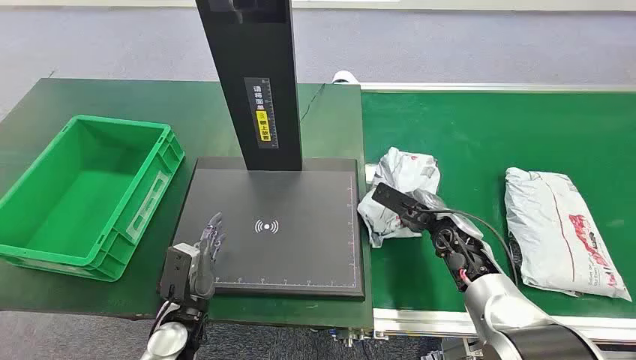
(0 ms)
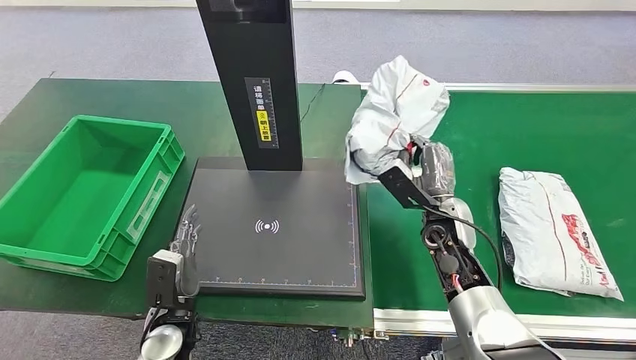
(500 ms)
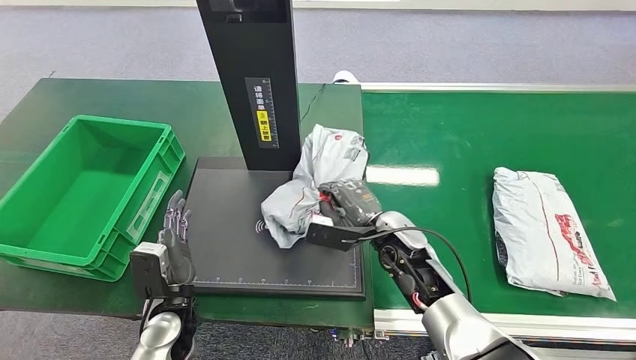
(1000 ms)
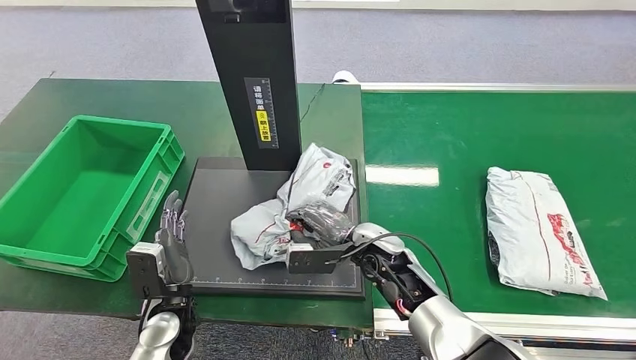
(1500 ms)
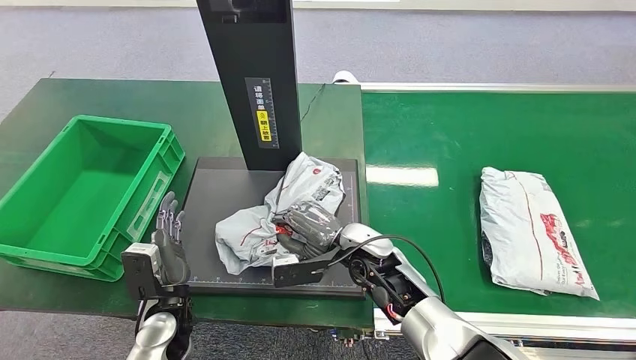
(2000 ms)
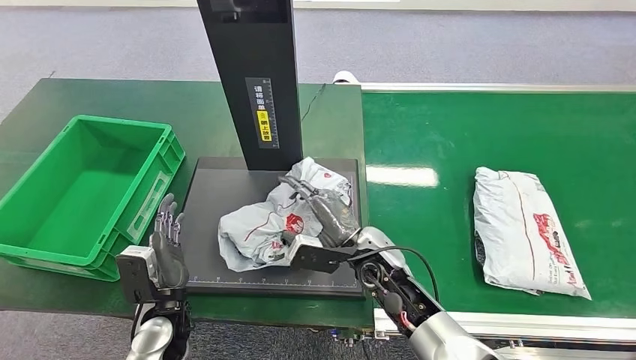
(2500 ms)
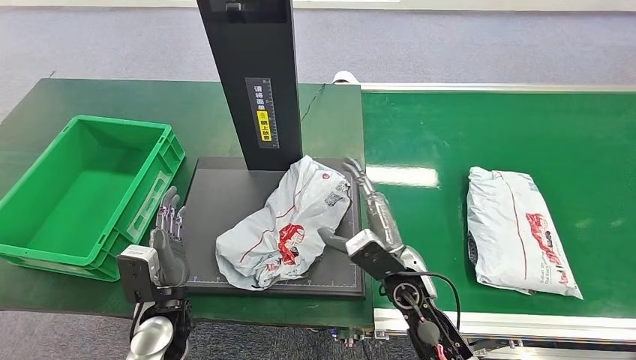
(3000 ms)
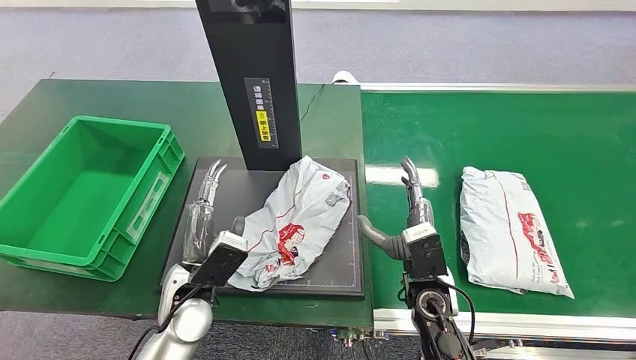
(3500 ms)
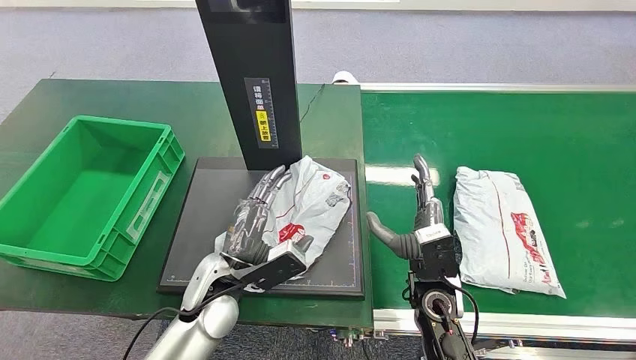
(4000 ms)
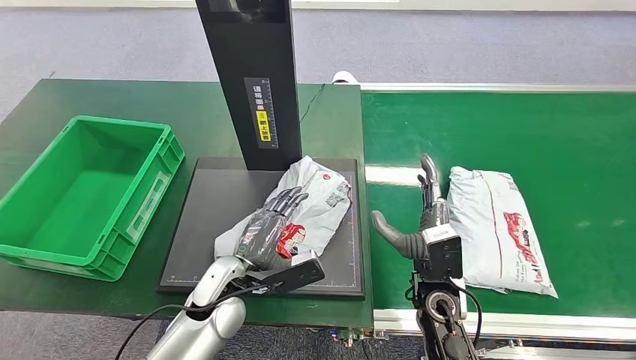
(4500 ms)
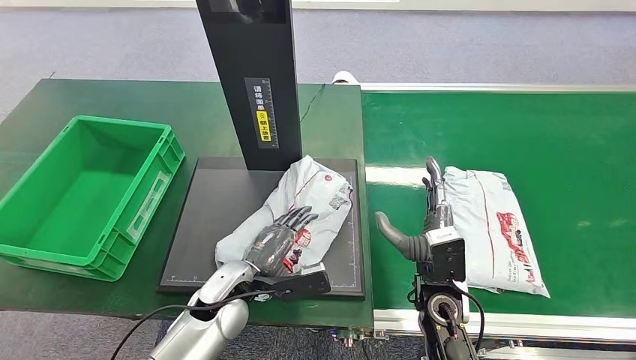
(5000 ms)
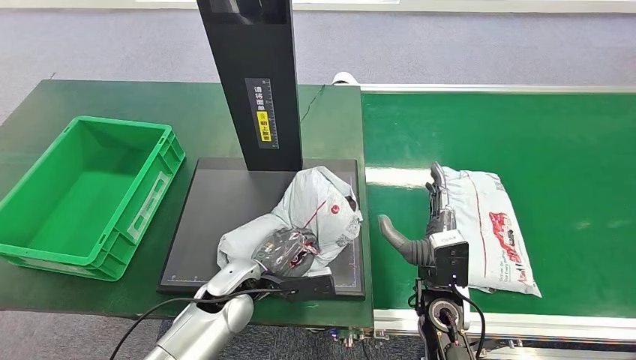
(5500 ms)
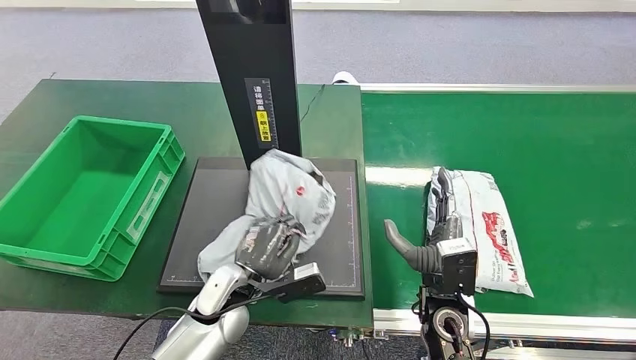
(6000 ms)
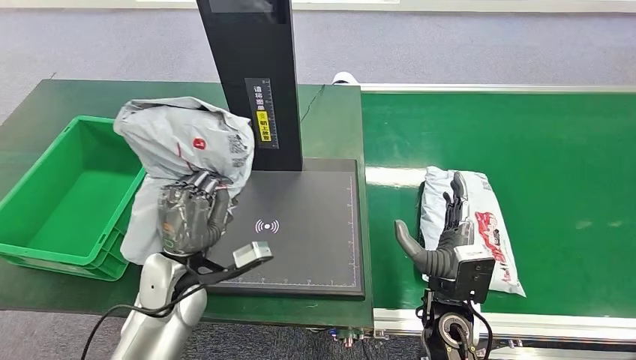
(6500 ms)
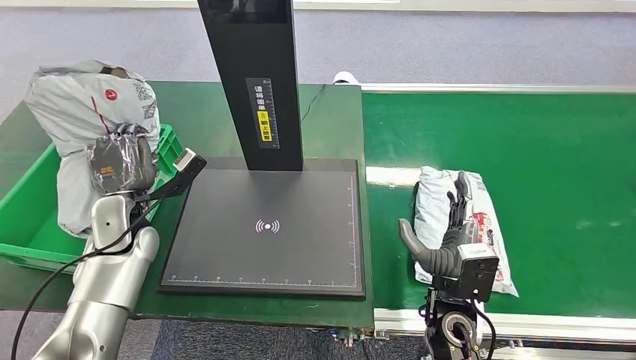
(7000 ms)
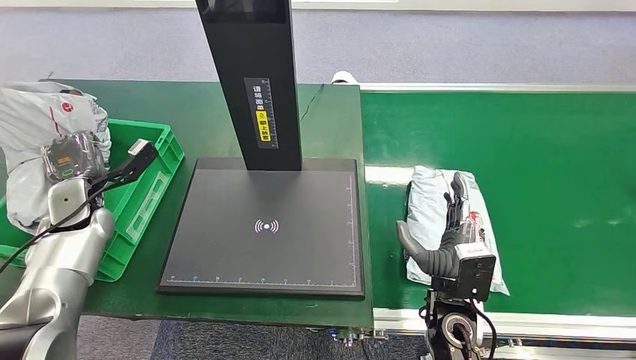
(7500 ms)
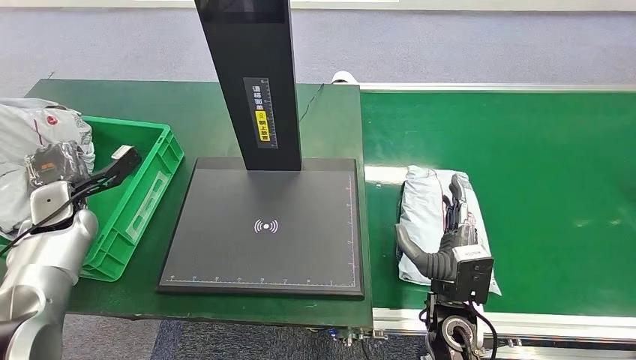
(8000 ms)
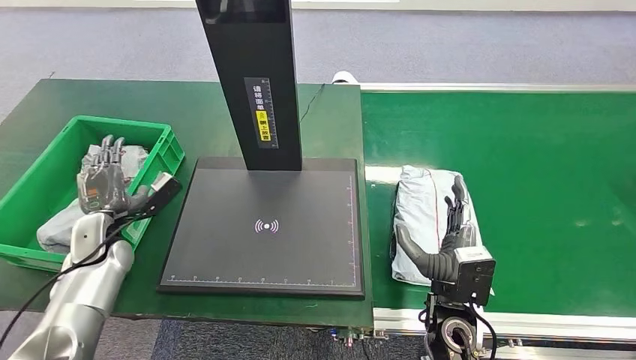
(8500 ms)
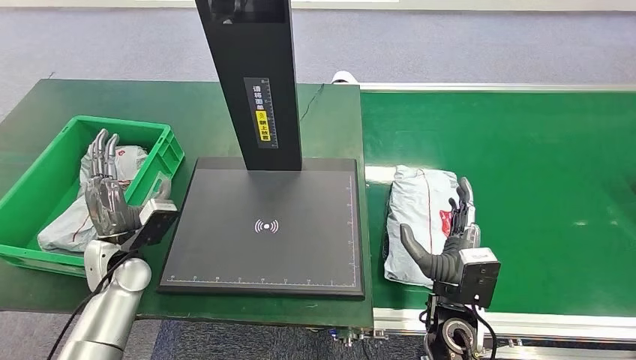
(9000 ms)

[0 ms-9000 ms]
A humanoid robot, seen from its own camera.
Task of the whole recording: Weigh the package on the weighing device and place it in the left basket.
7000 ms to 9000 ms: The left hand is displaced downward by some 5 cm, and goes to the left and returns, approximately 15 cm each way.
